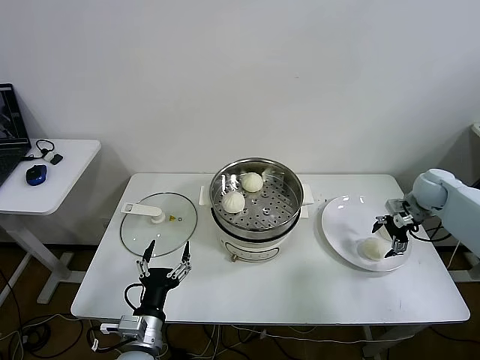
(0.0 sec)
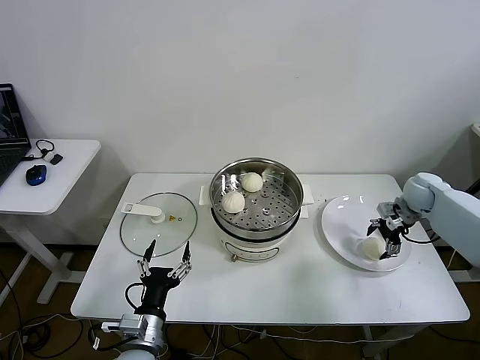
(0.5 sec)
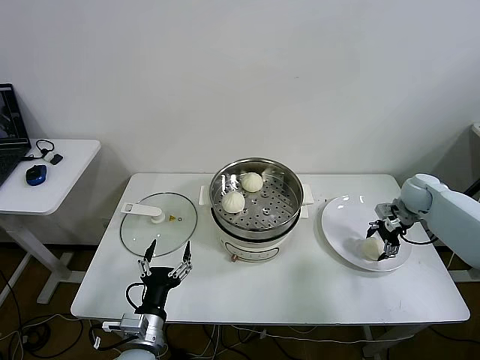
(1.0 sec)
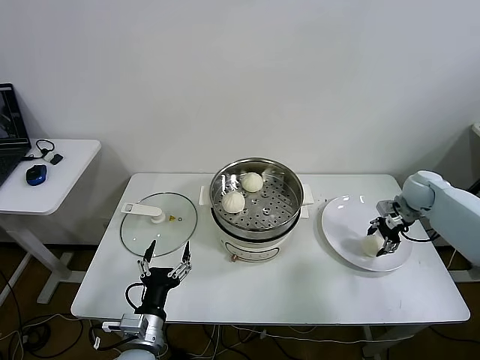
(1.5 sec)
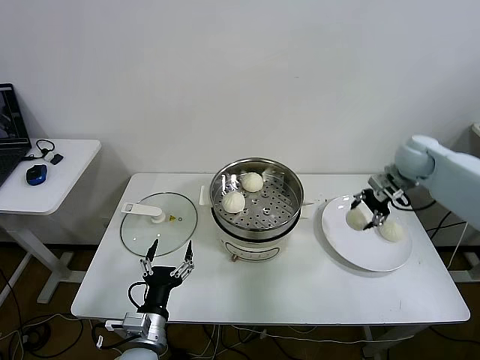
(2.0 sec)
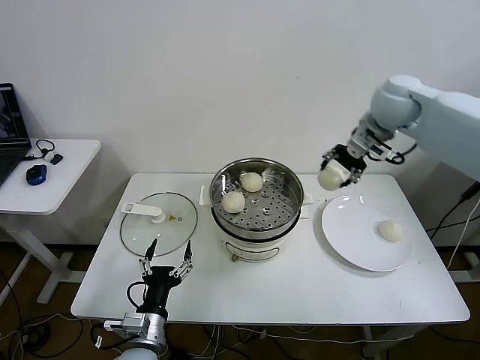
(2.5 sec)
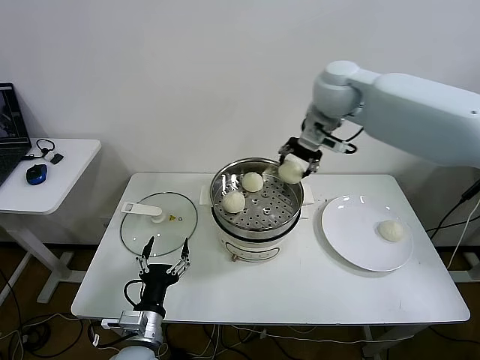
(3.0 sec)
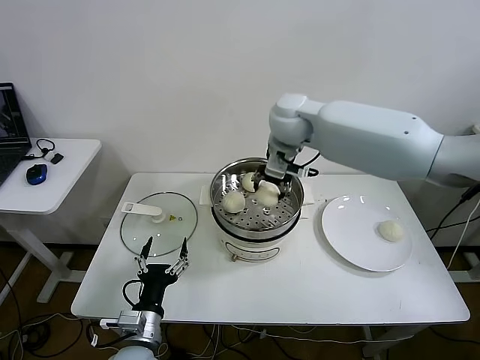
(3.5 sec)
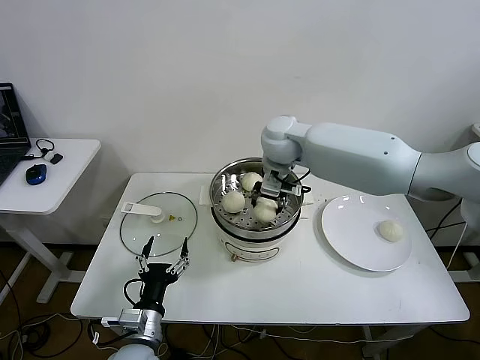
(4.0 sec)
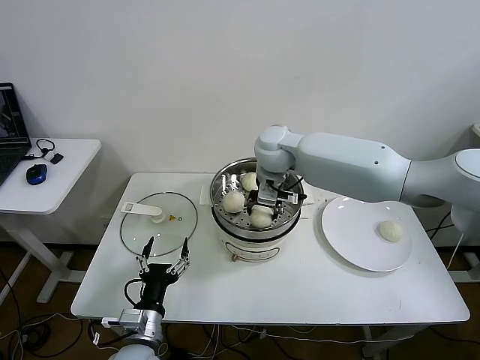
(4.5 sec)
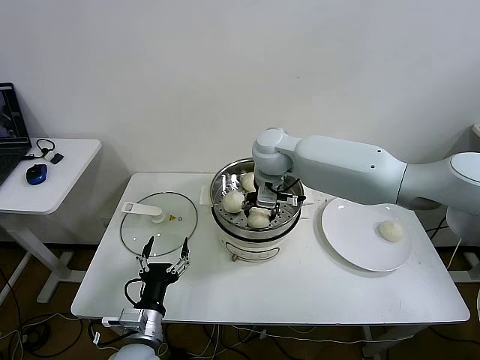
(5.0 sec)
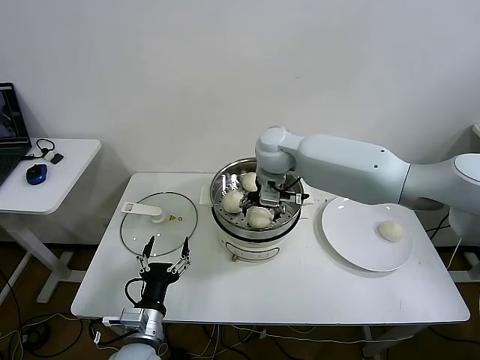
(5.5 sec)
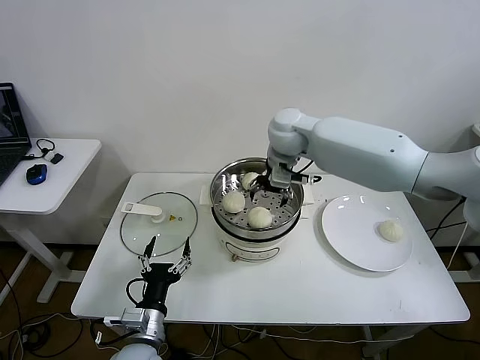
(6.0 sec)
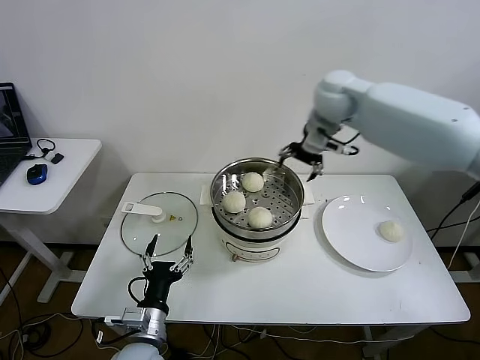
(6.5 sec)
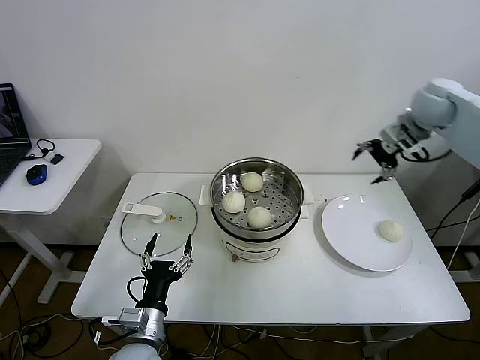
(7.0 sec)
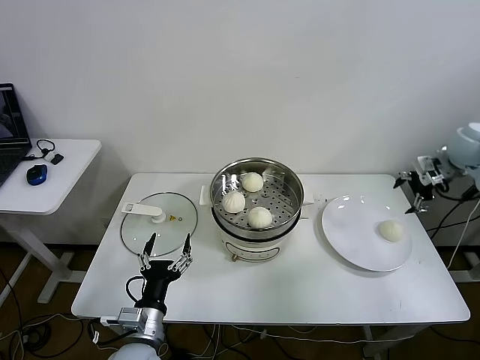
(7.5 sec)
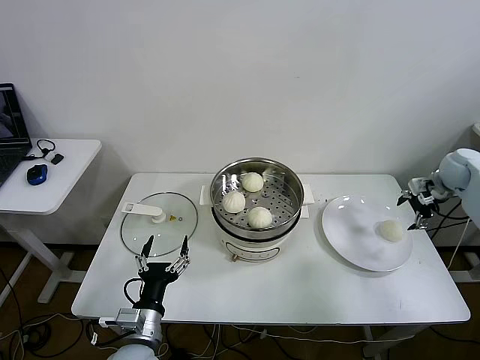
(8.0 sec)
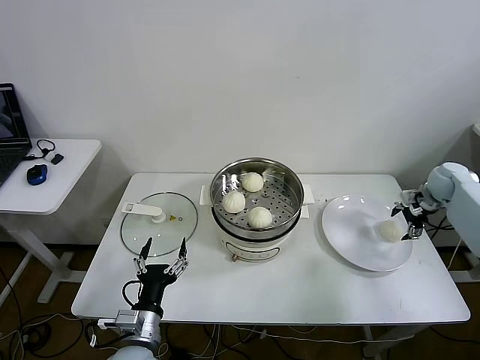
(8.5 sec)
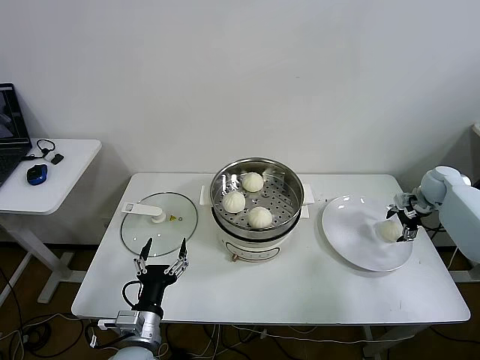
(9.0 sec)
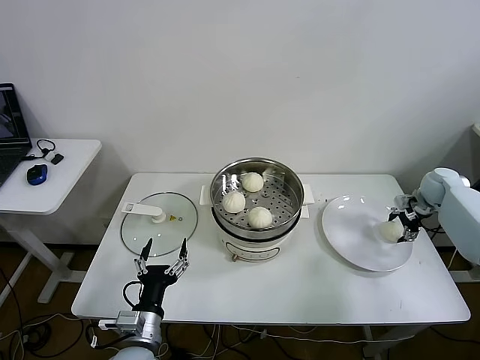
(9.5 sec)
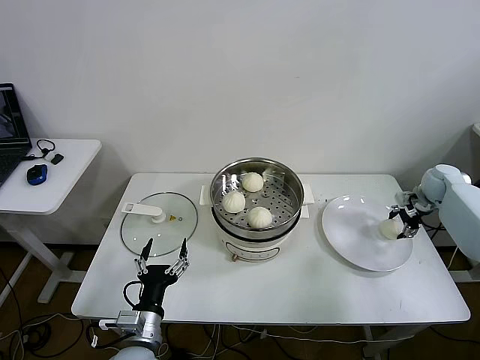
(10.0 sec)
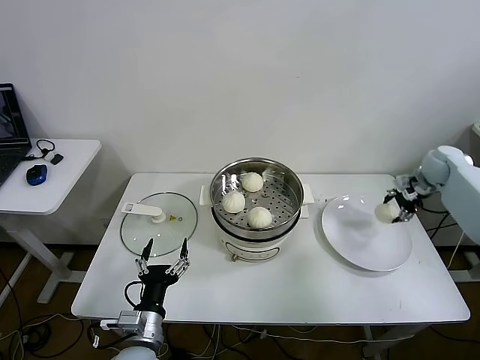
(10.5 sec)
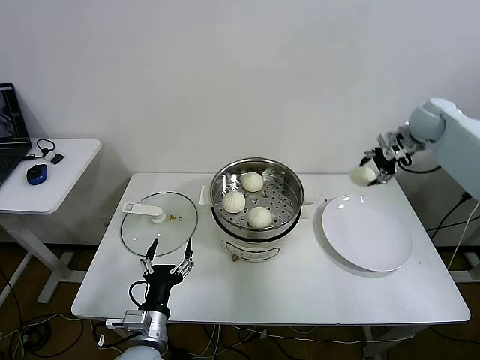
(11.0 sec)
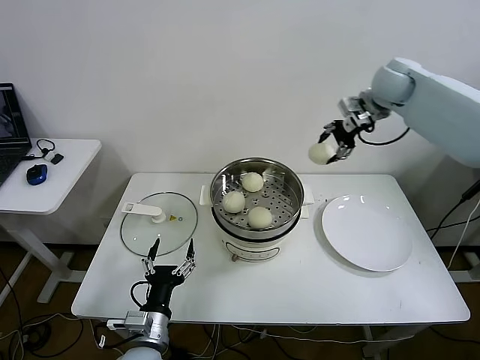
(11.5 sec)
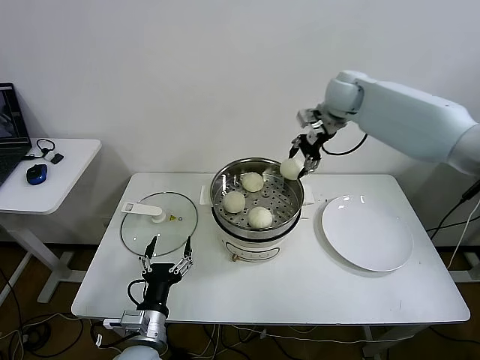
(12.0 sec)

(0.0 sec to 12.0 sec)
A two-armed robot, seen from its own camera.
Step, 1.5 sec - 5.5 sec: Place the baozi on the steamer with right gripper.
Step, 6.0 sec - 9.5 sec: Grasp the baozi in the plate with right gripper.
0.0 sec - 2.0 sec: The right gripper is displaced upward and to the left by roughly 10 cm, and closes up.
2.0 sec - 4.0 sec: The right gripper heads to the left, covering roughly 30 cm.
4.0 sec - 6.0 sec: The right gripper opens its fingers.
6.0 sec - 8.0 sec: The right gripper travels to the right by some 40 cm.
8.0 sec - 10.0 sec: The right gripper moves downward, some 5 cm, and closes.
10.0 sec - 12.0 sec: The right gripper heads to the left and upward, covering about 35 cm.

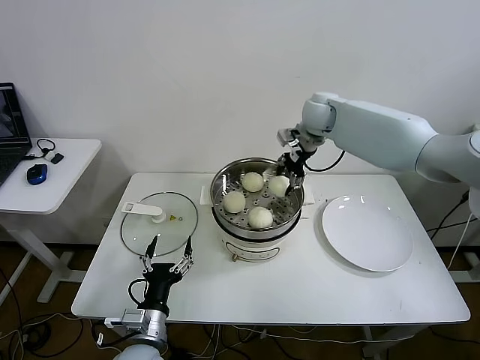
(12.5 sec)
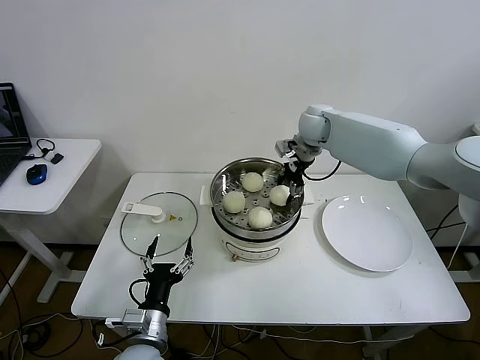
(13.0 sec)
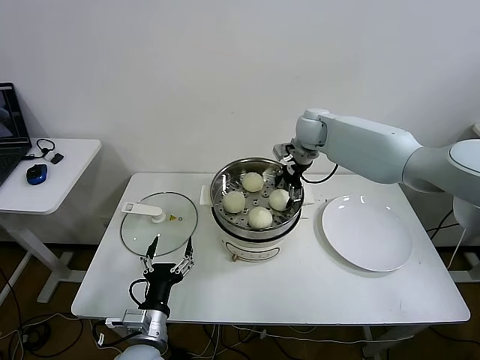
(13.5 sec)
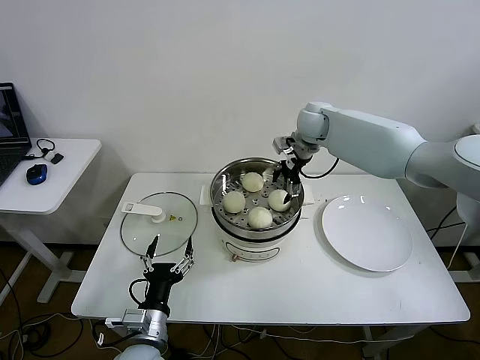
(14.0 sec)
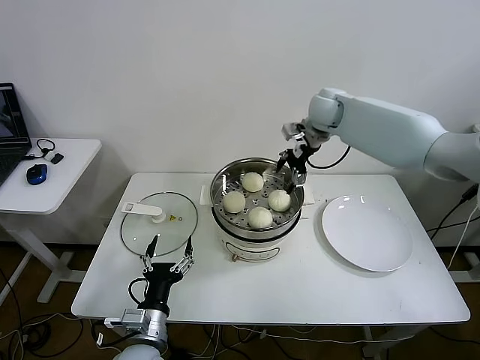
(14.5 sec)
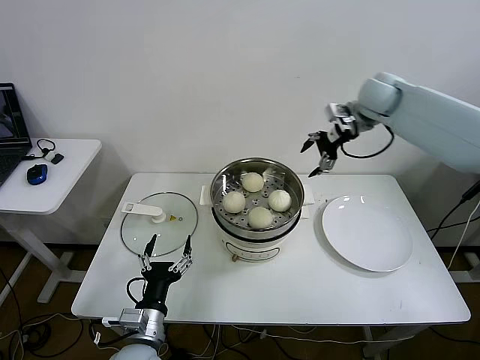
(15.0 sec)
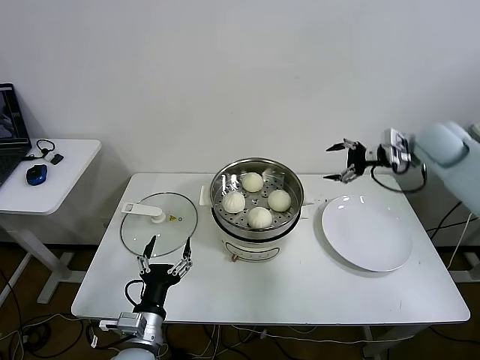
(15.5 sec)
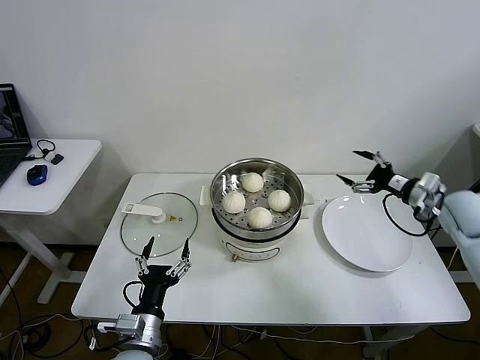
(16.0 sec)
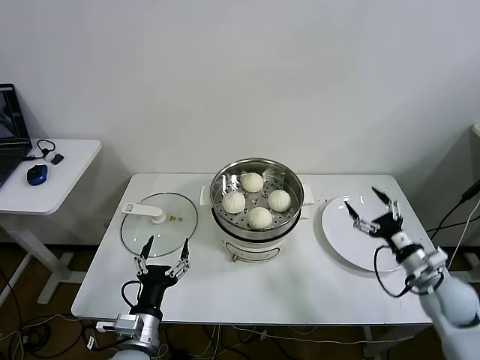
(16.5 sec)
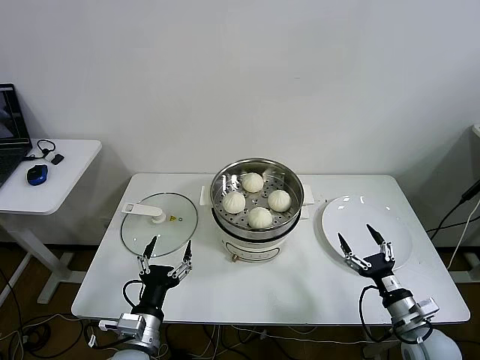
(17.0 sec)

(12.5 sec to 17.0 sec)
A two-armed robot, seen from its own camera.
12.5 sec - 14.5 sec: The right gripper opens up.
14.5 sec - 17.0 sec: The right gripper goes about 50 cm backward, downward and to the right.

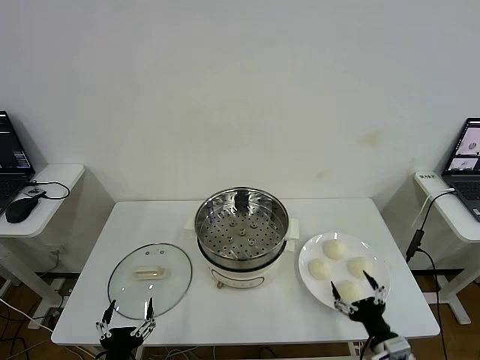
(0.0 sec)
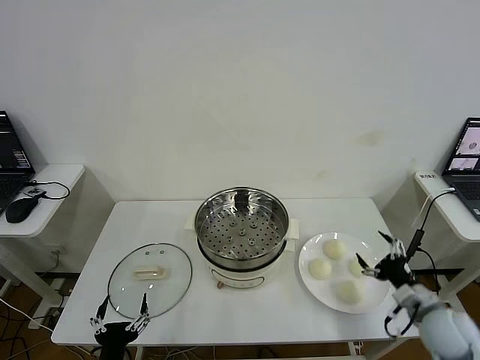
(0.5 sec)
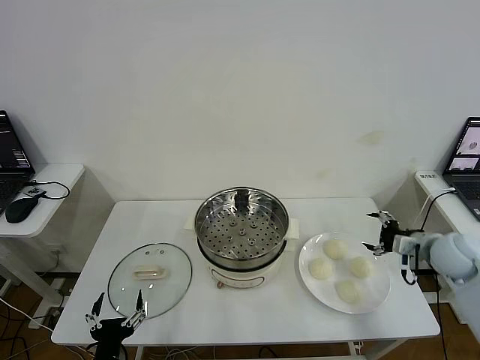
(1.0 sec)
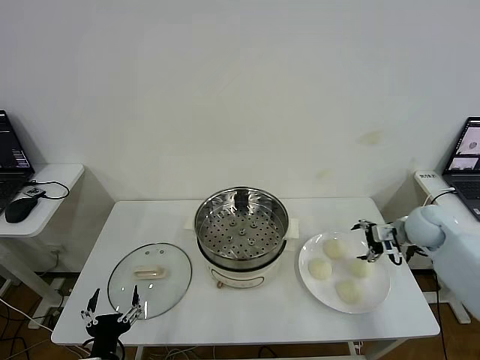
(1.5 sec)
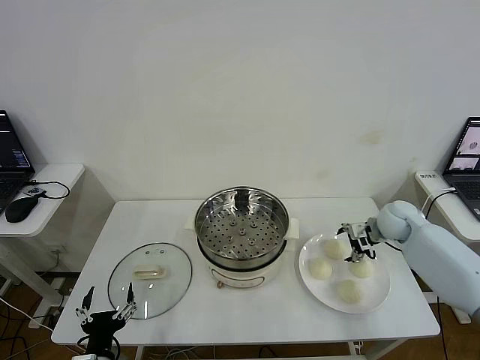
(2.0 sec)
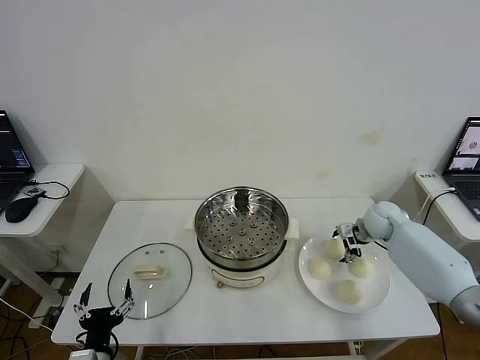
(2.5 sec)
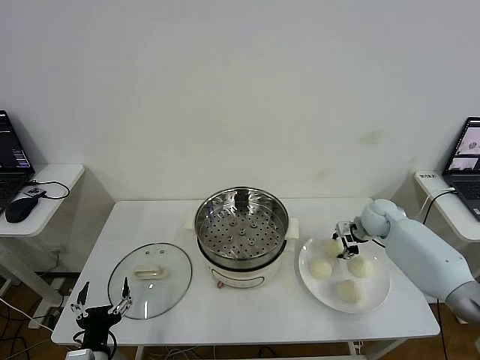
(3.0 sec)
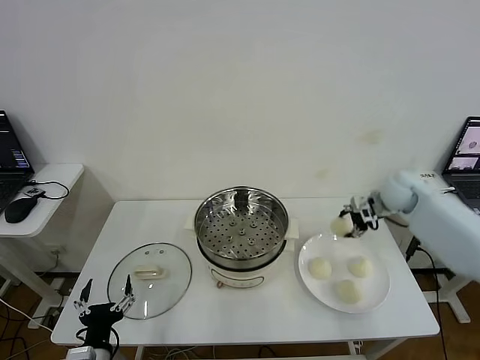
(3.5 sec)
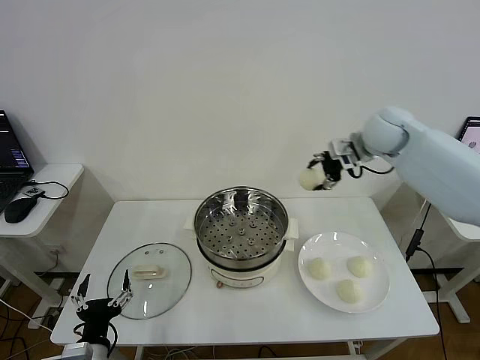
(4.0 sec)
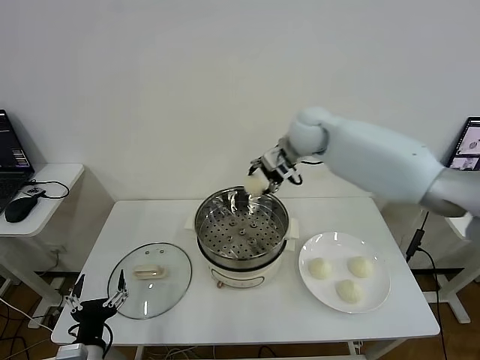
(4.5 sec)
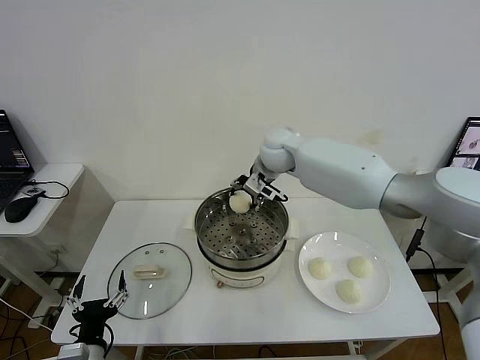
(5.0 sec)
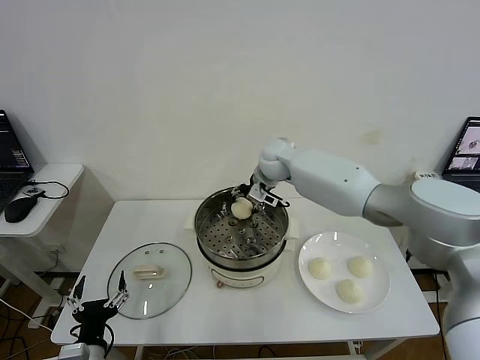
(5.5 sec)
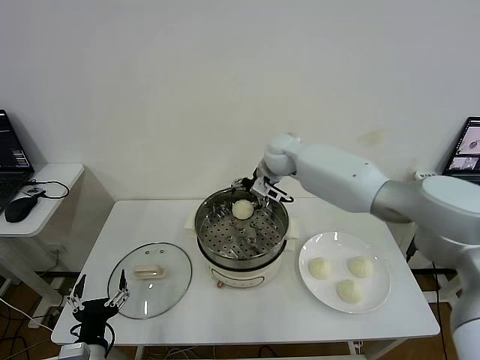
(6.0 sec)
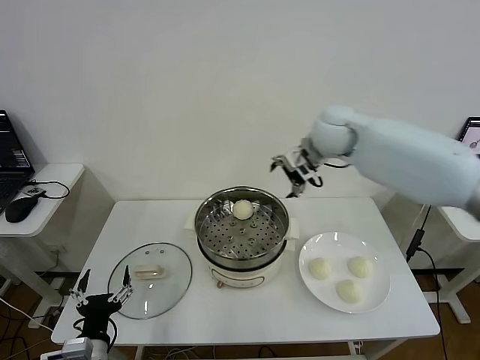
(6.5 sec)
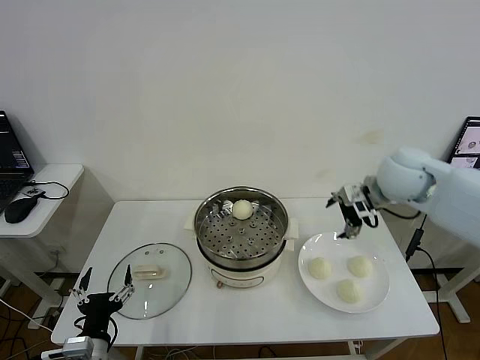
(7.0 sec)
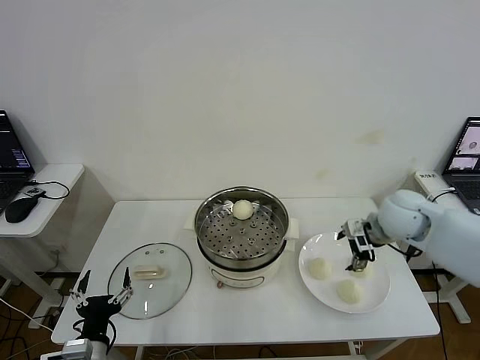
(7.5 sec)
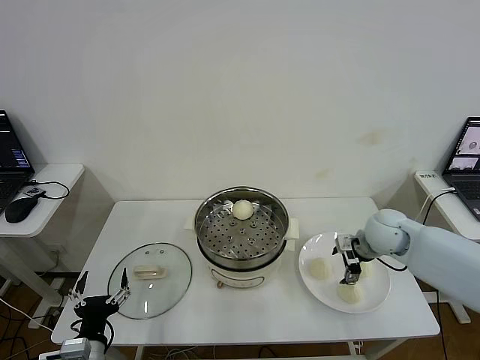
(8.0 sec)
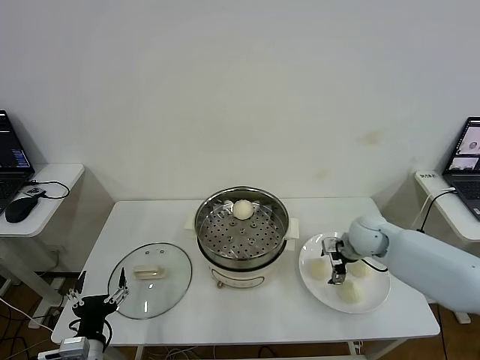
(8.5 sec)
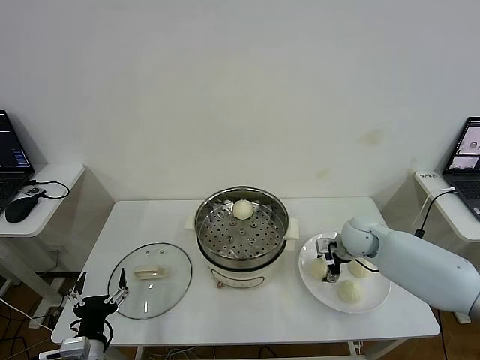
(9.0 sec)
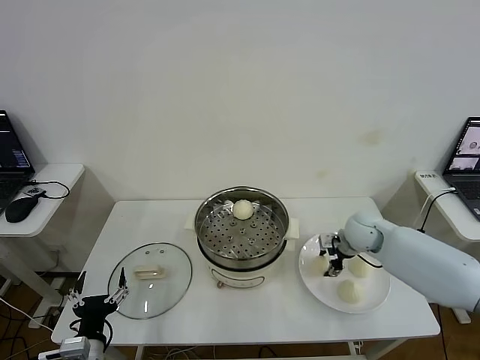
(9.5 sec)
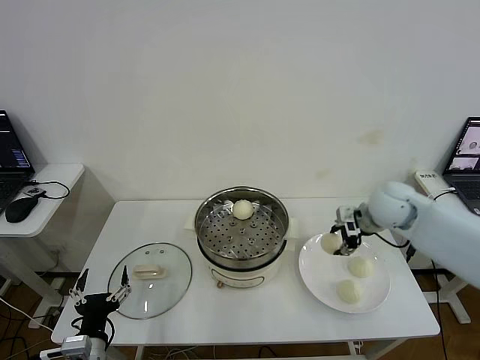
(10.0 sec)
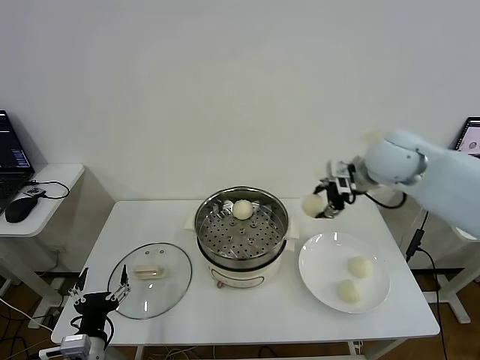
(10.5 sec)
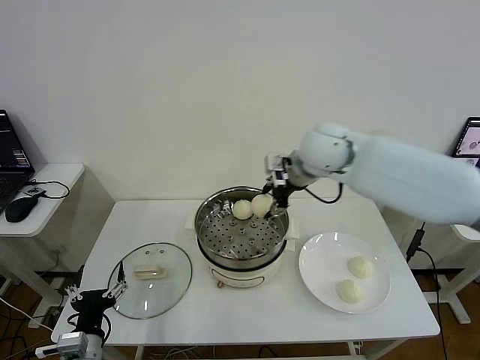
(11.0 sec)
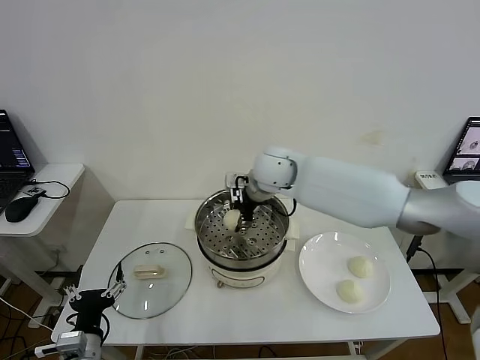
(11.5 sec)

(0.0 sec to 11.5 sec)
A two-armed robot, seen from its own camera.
Step, 0.0 sec - 2.5 sec: Grasp the baozi in the plate with right gripper.
Step, 3.0 sec - 5.5 sec: Place the baozi on the steamer with right gripper.
Step, 6.0 sec - 9.0 sec: Grasp the baozi in the plate with right gripper.
2.0 sec - 4.0 sec: The right gripper heads upward and to the left, covering about 25 cm, and closes up.
4.0 sec - 6.0 sec: The right gripper travels to the left and downward by approximately 15 cm, and opens up.
6.0 sec - 7.5 sec: The right gripper heads to the right and backward, covering roughly 25 cm.
7.5 sec - 9.5 sec: The right gripper heads downward, covering some 10 cm, and closes up.
9.5 sec - 11.5 sec: The right gripper moves to the left and upward, about 30 cm.
